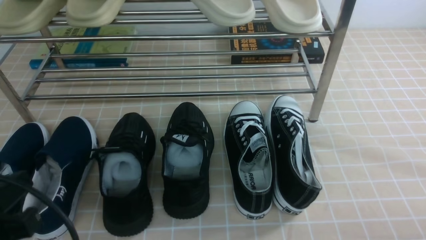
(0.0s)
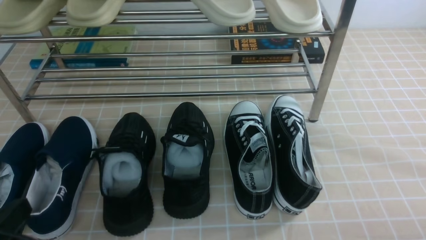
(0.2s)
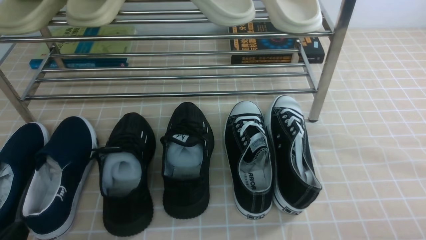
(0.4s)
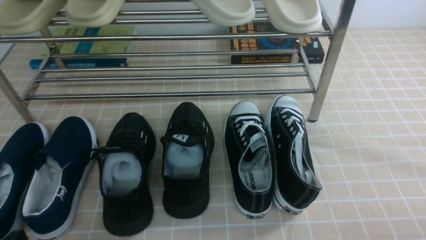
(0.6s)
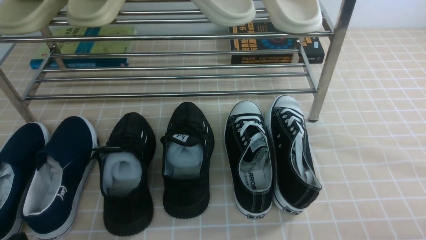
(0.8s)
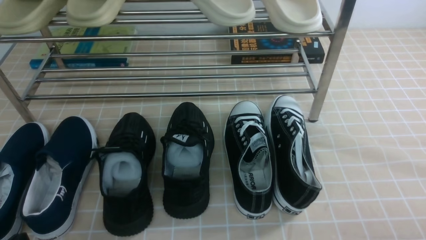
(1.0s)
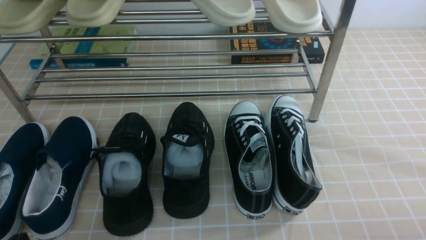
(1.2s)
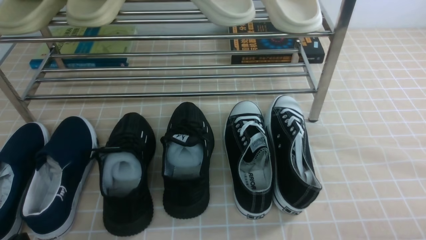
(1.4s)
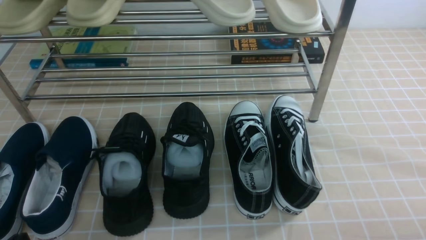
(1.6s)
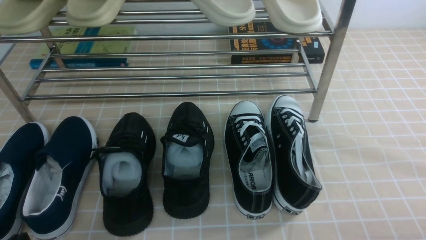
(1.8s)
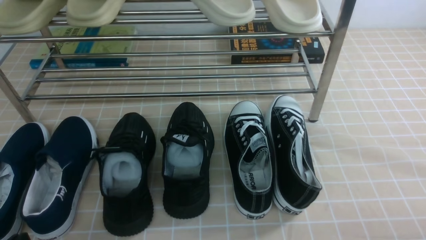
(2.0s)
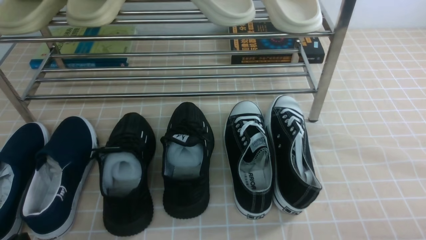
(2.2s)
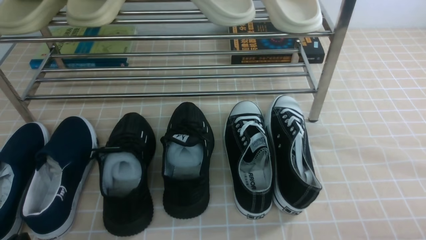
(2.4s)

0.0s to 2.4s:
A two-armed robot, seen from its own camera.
0.0s to 1.2s: The left gripper moves downward, about 10 cm.
1.2s to 2.4s: Neither gripper changes place.
